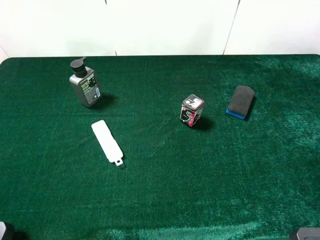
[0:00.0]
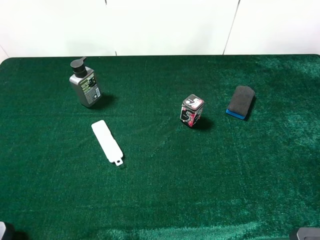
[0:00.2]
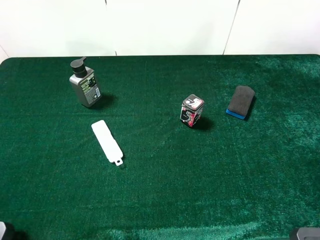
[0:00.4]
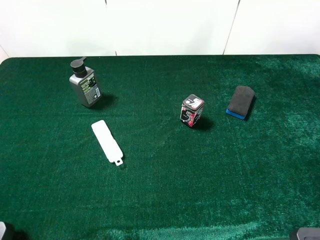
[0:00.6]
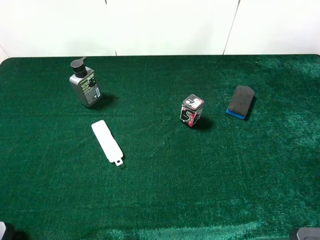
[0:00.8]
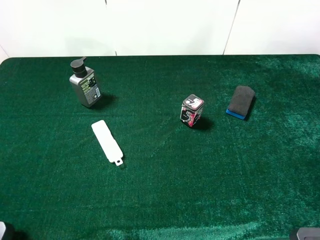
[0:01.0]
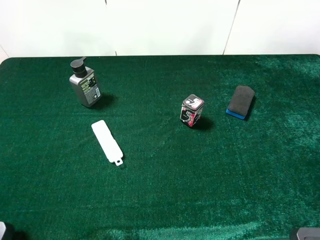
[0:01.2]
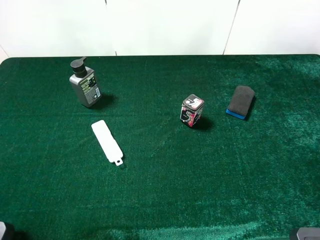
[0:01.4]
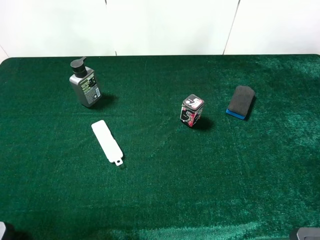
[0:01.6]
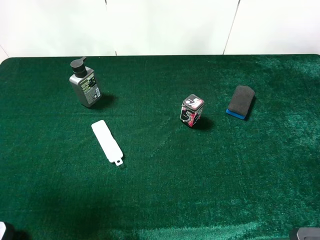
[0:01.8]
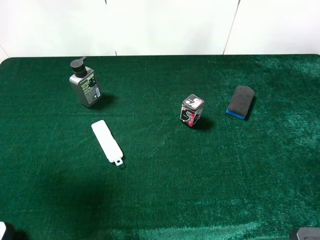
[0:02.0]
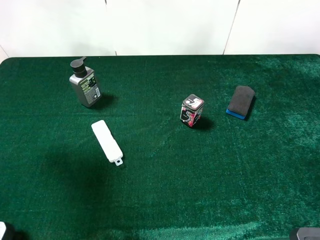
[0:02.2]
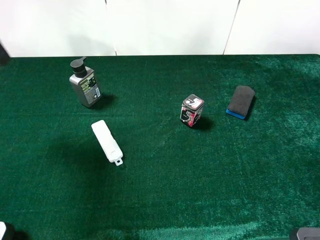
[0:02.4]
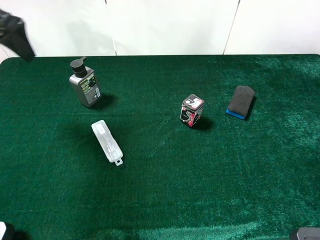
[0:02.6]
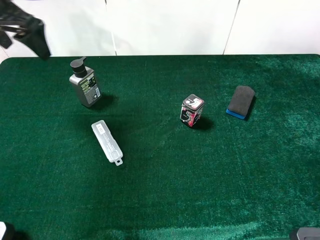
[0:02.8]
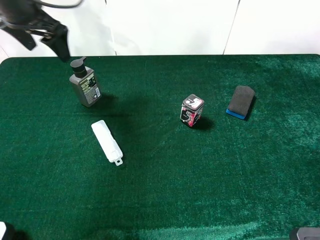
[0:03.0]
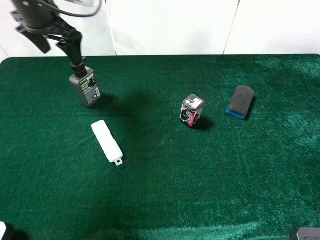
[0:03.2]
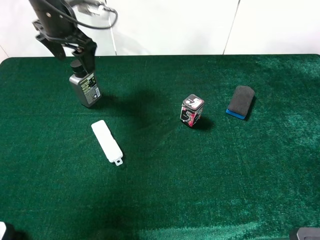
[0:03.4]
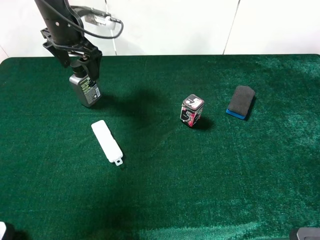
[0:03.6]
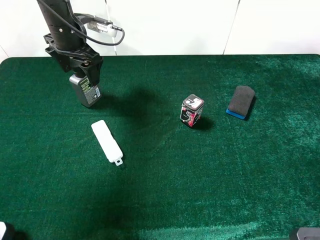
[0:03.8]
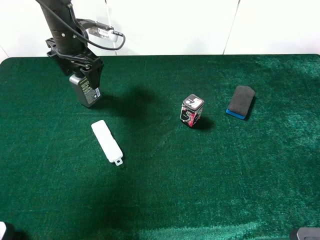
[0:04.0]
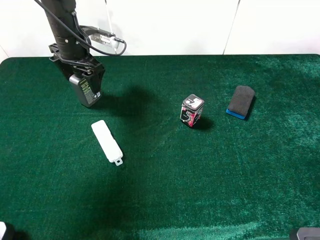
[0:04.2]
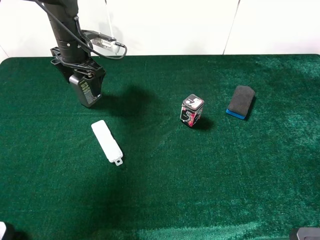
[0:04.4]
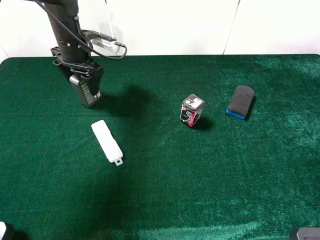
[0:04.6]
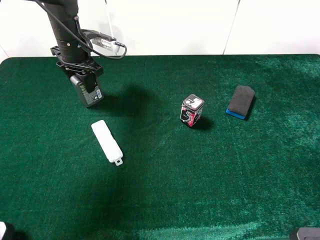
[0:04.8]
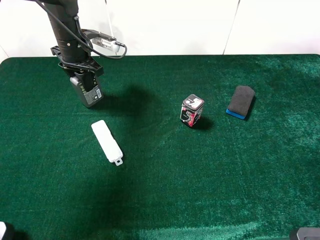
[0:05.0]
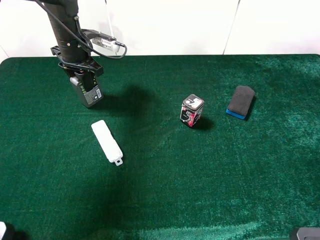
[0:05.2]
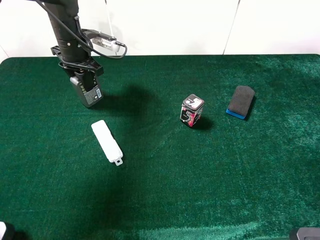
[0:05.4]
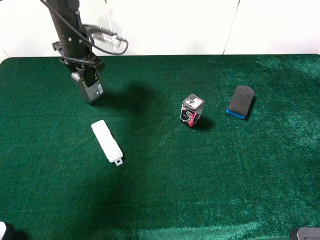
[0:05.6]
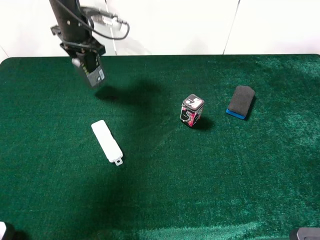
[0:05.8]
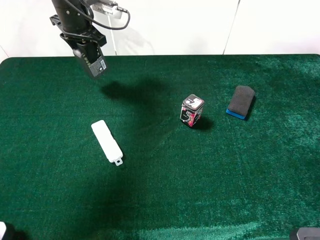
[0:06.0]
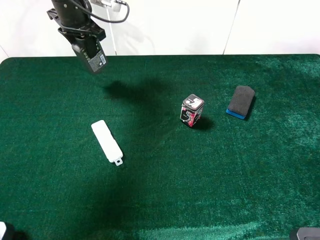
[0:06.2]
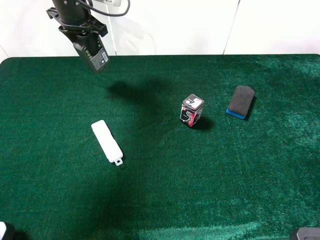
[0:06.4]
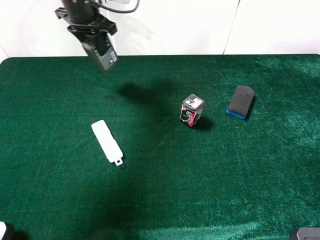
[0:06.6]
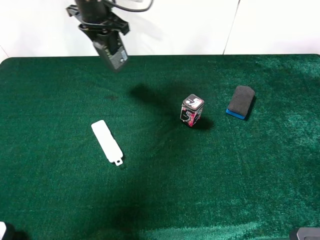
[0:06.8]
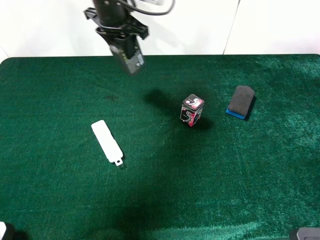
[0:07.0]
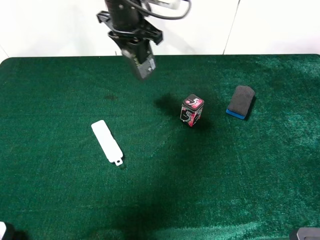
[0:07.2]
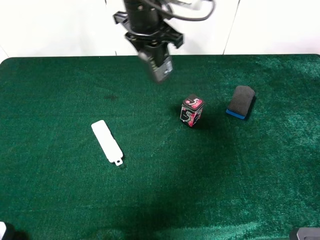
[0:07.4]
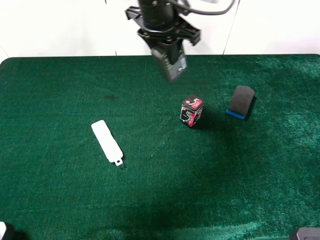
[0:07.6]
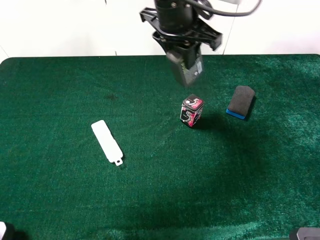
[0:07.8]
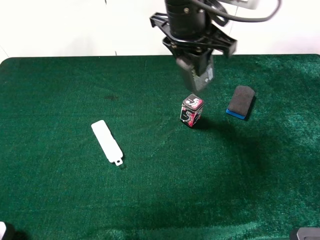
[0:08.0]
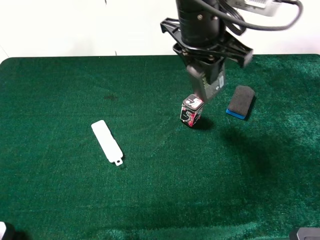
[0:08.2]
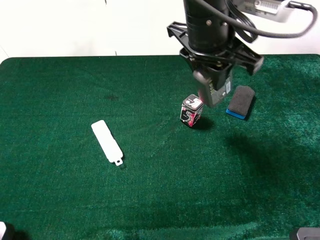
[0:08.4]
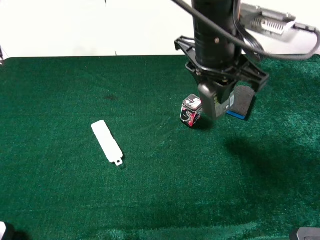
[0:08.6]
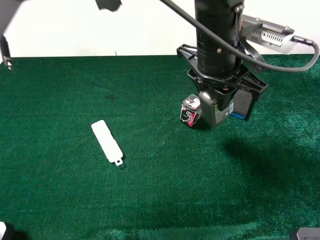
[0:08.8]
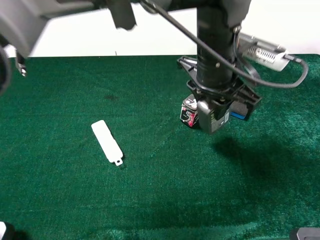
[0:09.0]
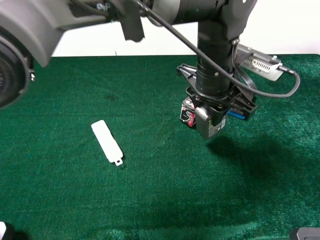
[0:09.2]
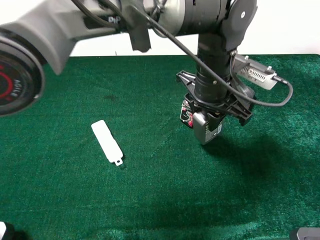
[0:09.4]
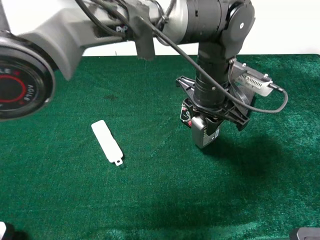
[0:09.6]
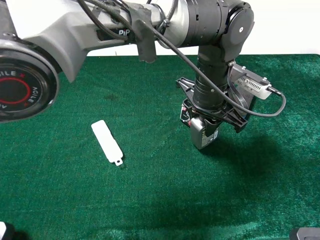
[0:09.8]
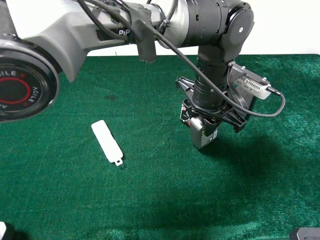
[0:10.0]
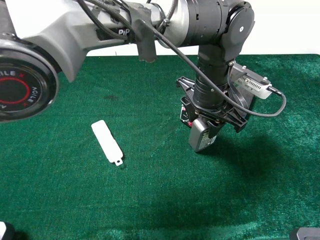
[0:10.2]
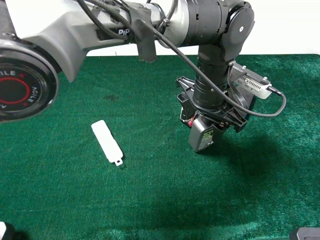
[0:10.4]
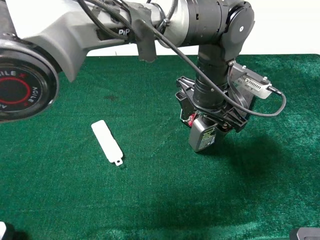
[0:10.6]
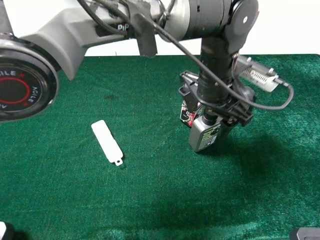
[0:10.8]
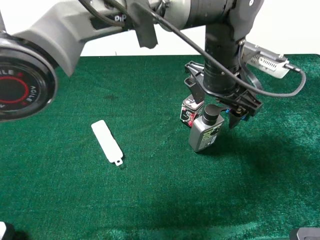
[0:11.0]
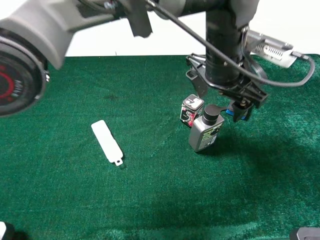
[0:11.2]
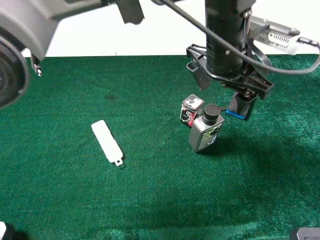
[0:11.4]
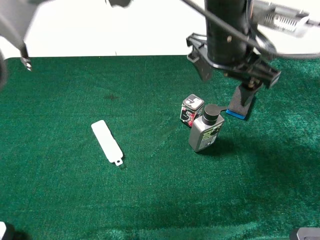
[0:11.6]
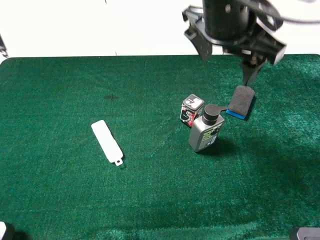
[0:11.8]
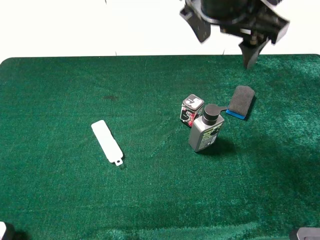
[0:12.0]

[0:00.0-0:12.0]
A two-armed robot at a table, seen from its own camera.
Task of the whole recording: the gripper move the object.
Step, 0:00.0 to 0:05.2: Grasp the hard facial cleanser with the left gripper.
Step, 0:05.4 to 0:10.8: Place the hard facial cleanser on the table with the left gripper.
0:00.0 to 0:01.6: The left gripper heads forward and upward, covering roughly 10 cm.
0:01.6 to 0:03.0: The left gripper travels forward by approximately 30 cm.
0:03.0 to 0:04.4: The left gripper travels downward by approximately 10 cm.
0:04.4 to 0:06.0: The left gripper moves upward, about 5 cm, and closes up.
0:06.0 to 0:07.6: The left gripper heads to the right and backward, covering roughly 20 cm.
0:07.6 to 0:09.0: The left gripper is displaced to the right, backward and downward by some 15 cm.
0:09.0 to 0:10.4: The left gripper opens.
0:10.4 to 0:12.0: The left gripper shifts about 15 cm upward.

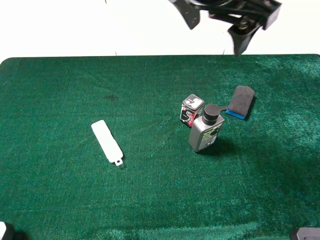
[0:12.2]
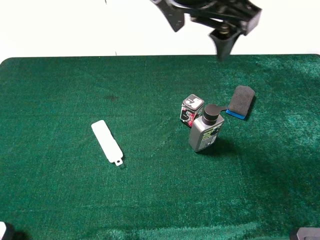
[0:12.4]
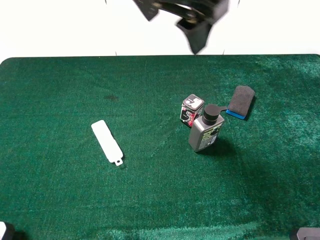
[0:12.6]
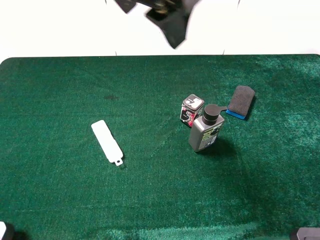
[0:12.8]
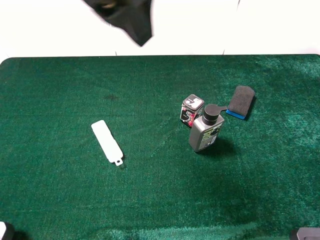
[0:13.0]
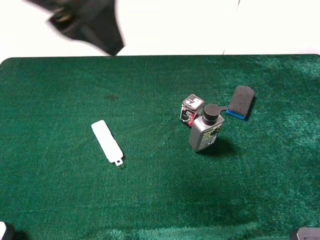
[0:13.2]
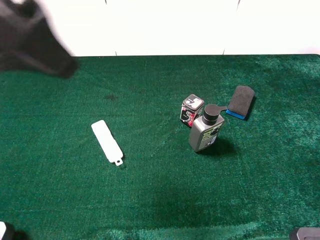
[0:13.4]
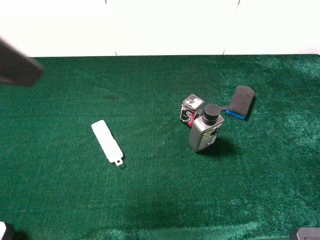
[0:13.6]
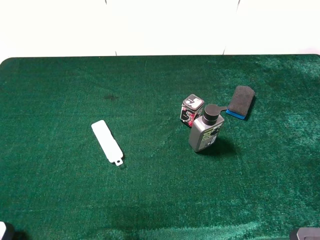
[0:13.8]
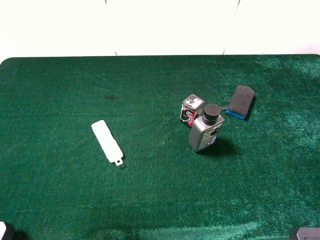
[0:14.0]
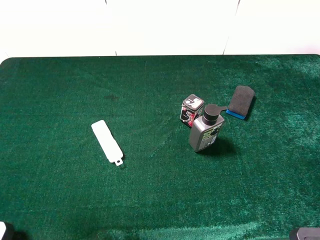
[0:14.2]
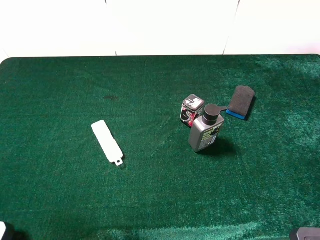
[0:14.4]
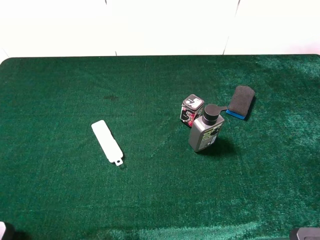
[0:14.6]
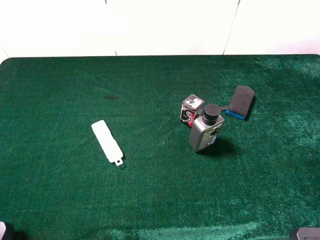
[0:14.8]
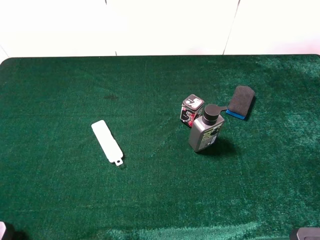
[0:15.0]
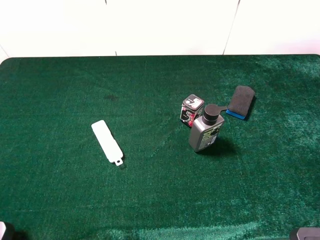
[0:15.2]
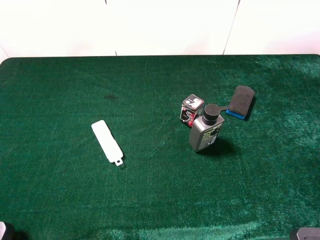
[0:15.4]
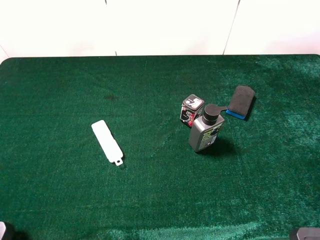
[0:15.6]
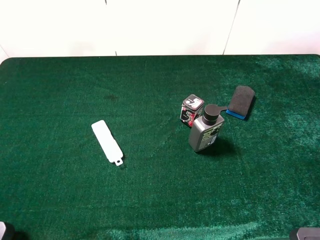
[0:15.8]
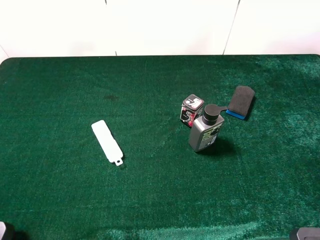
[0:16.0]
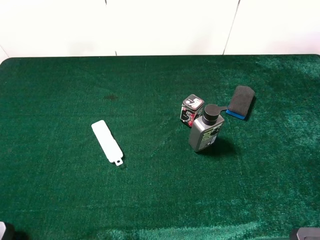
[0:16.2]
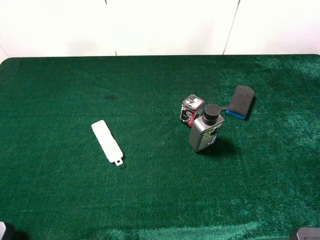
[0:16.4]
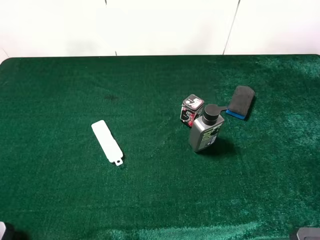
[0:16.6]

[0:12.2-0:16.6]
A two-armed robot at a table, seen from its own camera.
Task of the whole recording: the gripper move the object.
0:12.2 to 0:13.6: The left gripper moves to the left and backward, about 30 cm.
0:13.6 to 0:15.2: The left gripper travels to the left, downward and backward by some 20 cm.
